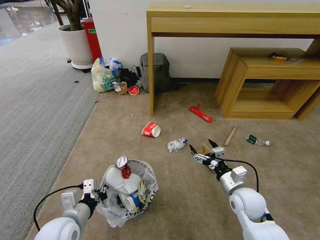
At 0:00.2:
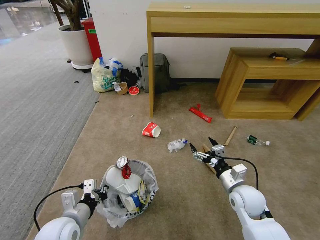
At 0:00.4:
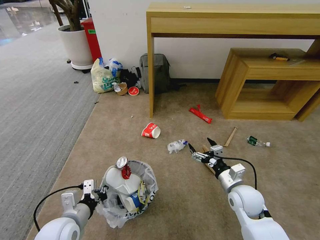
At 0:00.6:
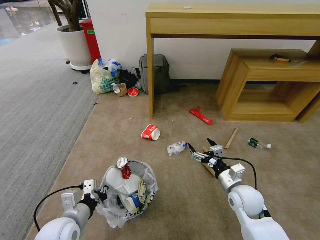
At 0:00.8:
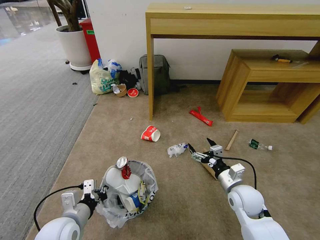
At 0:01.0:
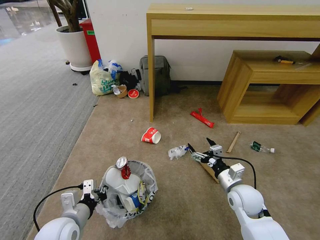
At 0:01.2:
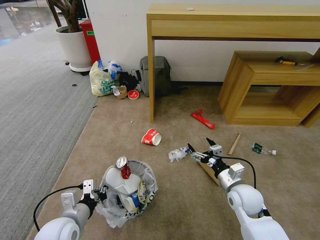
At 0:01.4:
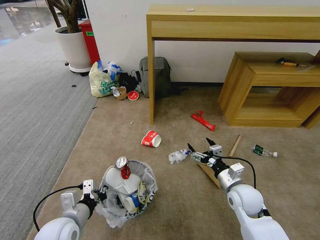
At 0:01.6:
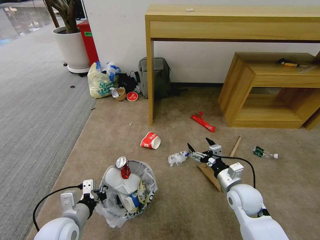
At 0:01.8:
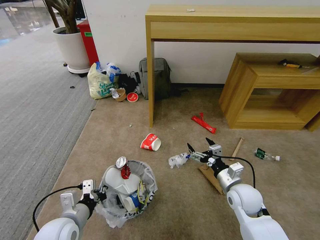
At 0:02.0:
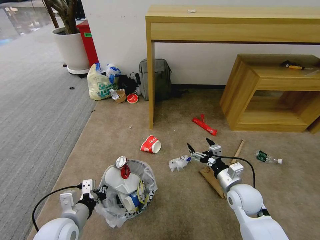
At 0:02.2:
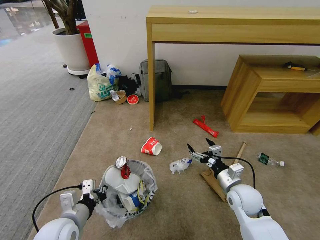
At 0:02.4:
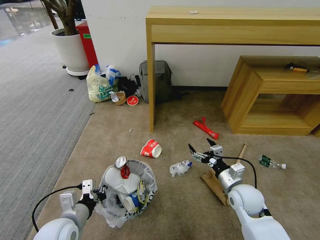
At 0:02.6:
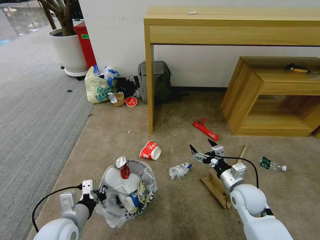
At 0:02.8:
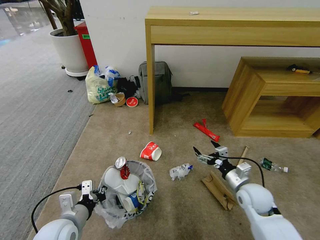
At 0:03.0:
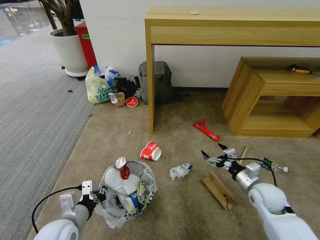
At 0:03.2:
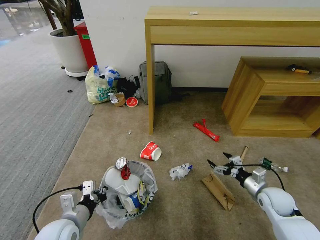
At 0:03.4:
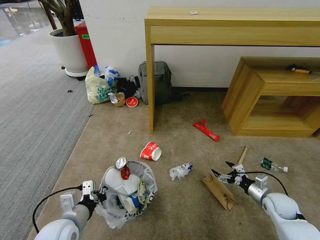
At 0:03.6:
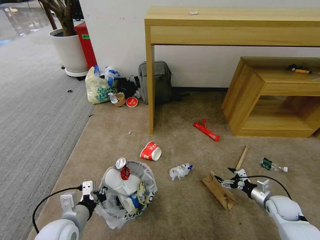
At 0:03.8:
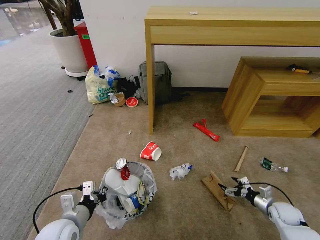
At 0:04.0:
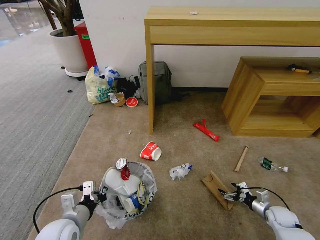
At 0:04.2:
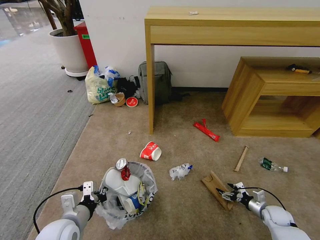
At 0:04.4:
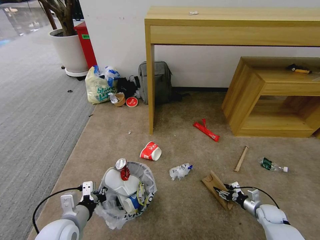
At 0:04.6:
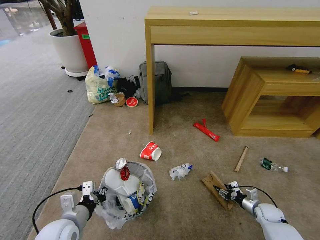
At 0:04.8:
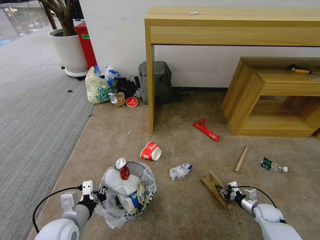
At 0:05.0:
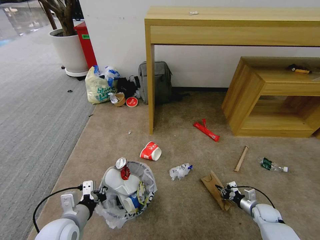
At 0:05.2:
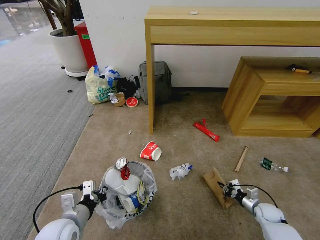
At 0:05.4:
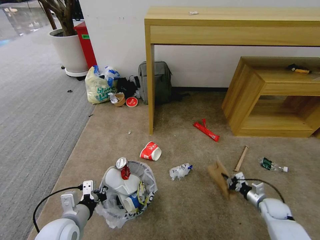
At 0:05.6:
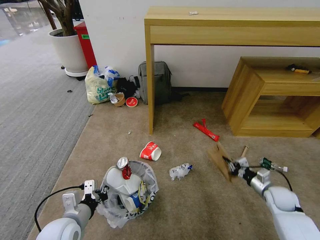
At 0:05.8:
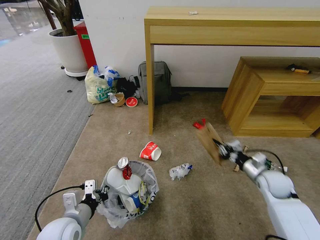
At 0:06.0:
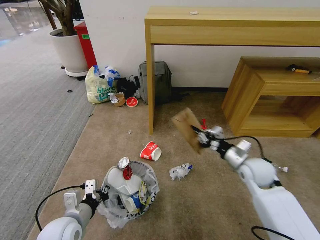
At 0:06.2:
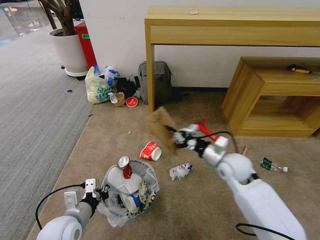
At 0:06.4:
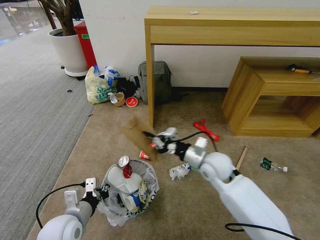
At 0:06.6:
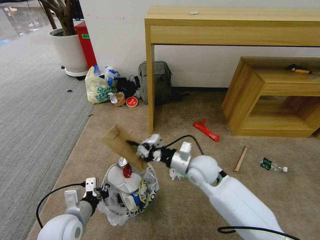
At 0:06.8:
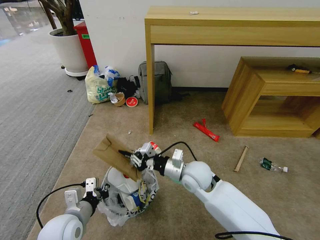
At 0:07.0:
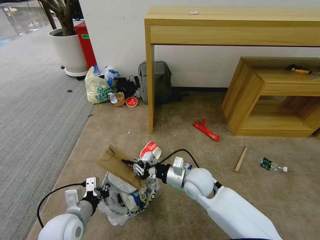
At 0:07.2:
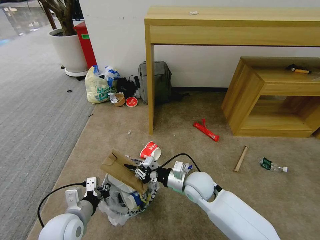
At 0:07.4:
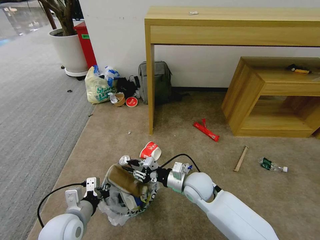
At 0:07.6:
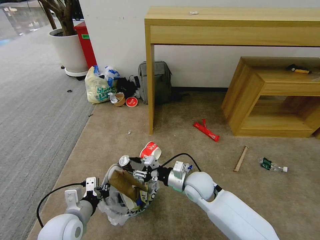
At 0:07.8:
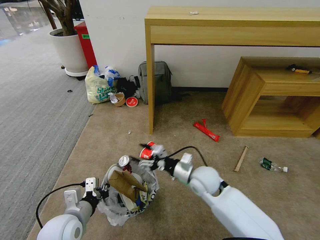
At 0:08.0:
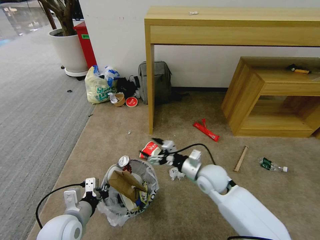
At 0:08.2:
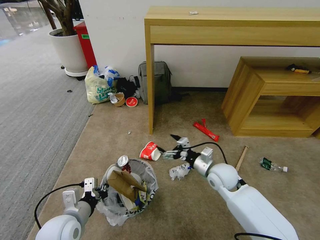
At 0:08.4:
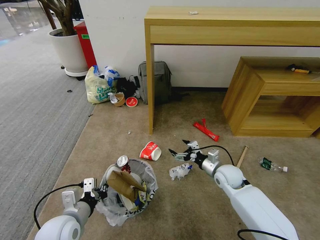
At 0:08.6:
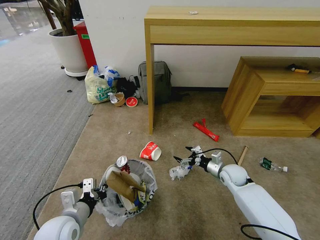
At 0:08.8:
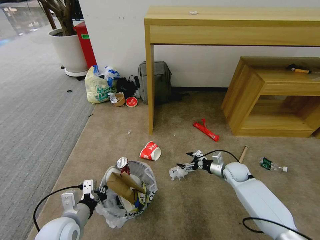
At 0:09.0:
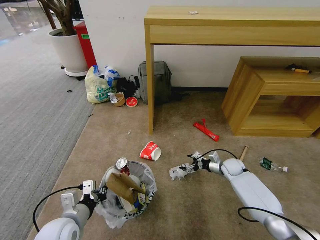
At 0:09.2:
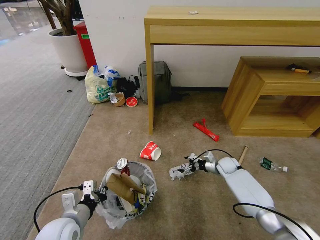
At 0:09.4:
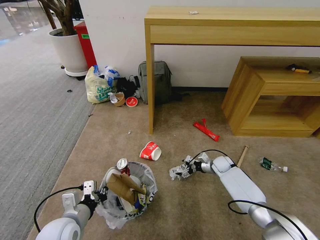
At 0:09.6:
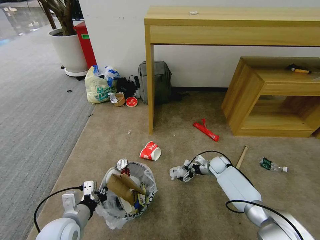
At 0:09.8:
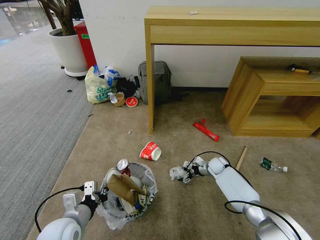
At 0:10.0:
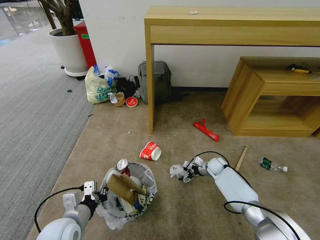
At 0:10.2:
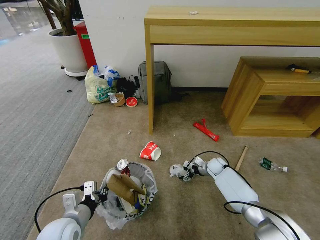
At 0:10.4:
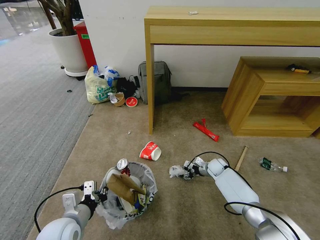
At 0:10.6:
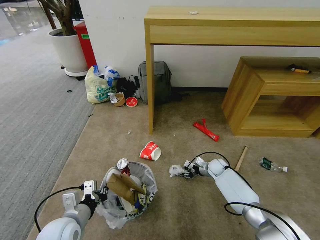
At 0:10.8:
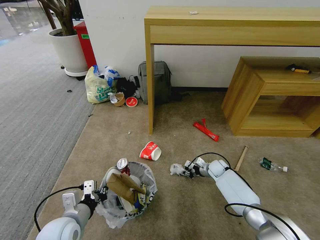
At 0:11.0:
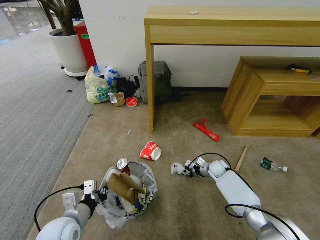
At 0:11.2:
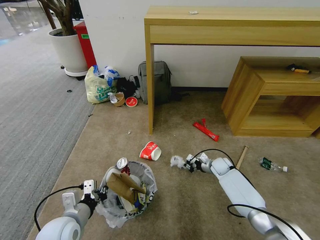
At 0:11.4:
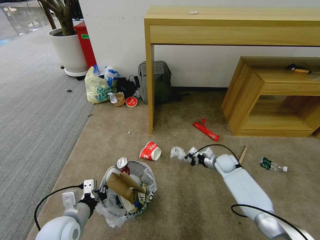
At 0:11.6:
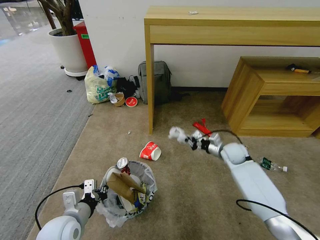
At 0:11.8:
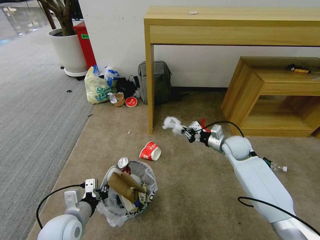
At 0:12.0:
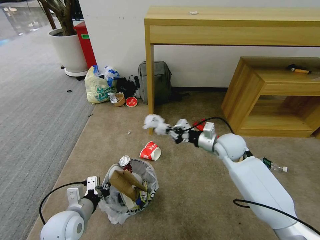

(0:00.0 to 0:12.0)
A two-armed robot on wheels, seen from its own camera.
Task of the whole recording: Pick up the trash bin and place the garbage on the floor into it.
0:01.6 - 0:03.0: The right gripper heads to the right, covering about 10 cm.
0:03.0 - 0:04.4: The right gripper is displaced downward and to the right by about 20 cm, and closes.
0:04.4 - 0:06.0: The right gripper travels upward and to the left by approximately 30 cm, and closes up.
0:06.0 - 0:07.6: The right gripper heads to the left, covering roughly 20 cm, and opens up.
0:07.6 - 0:09.0: The right gripper travels to the right, forward and downward by approximately 30 cm, and opens its fingers.
0:09.0 - 0:10.4: The right gripper goes about 5 cm to the left.
0:10.4 - 0:12.0: The right gripper travels upward by approximately 25 cm, and closes.

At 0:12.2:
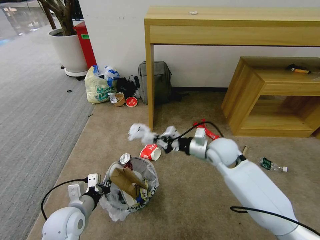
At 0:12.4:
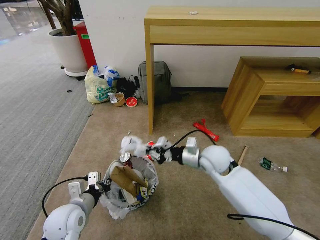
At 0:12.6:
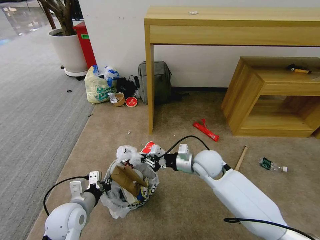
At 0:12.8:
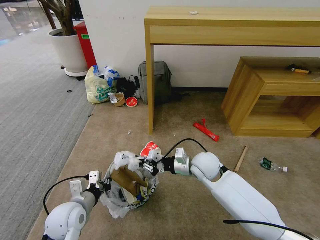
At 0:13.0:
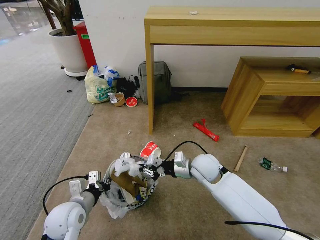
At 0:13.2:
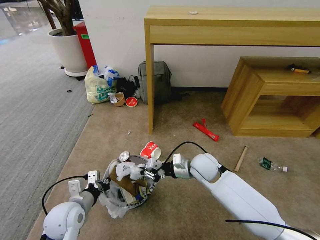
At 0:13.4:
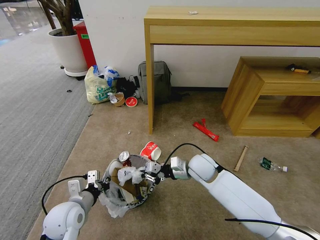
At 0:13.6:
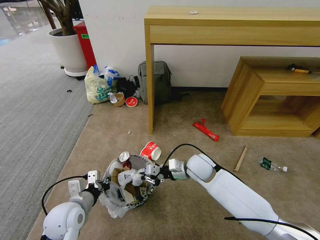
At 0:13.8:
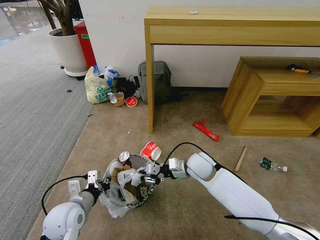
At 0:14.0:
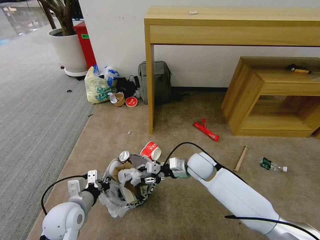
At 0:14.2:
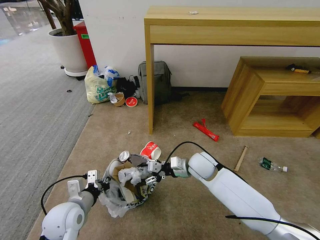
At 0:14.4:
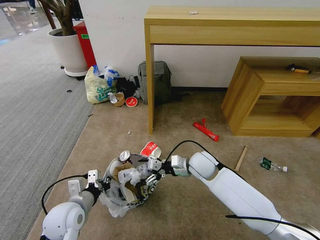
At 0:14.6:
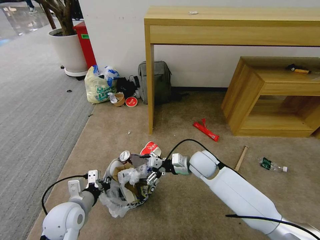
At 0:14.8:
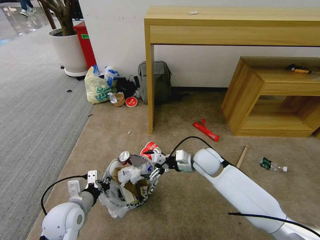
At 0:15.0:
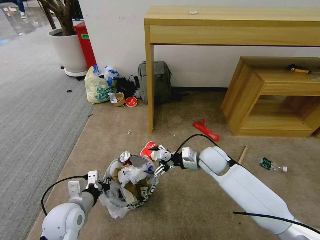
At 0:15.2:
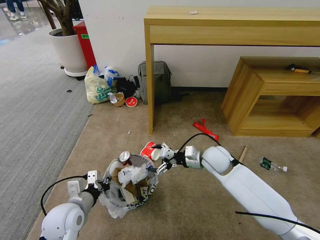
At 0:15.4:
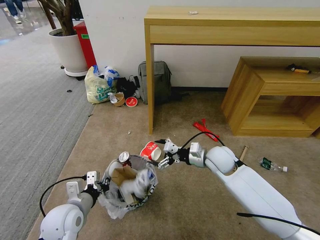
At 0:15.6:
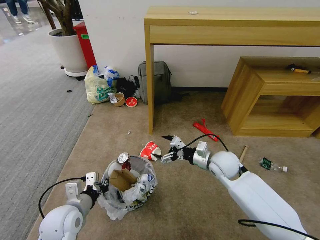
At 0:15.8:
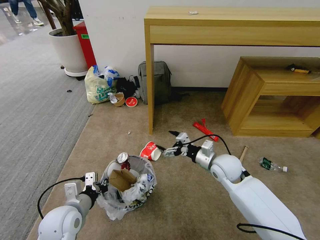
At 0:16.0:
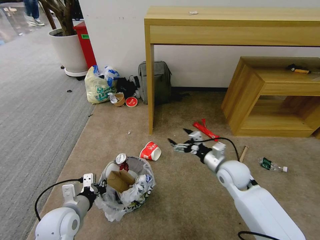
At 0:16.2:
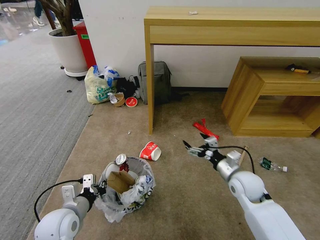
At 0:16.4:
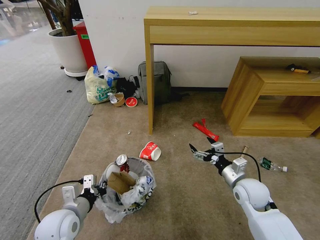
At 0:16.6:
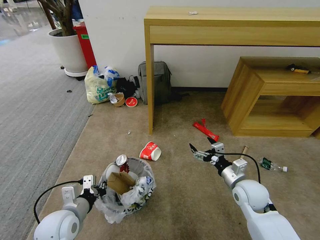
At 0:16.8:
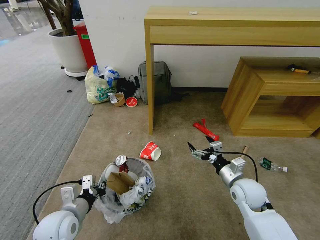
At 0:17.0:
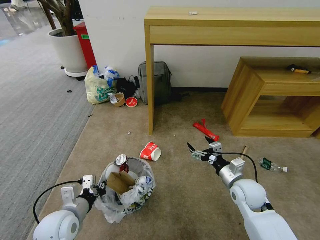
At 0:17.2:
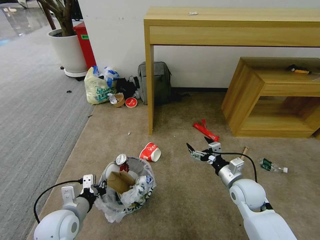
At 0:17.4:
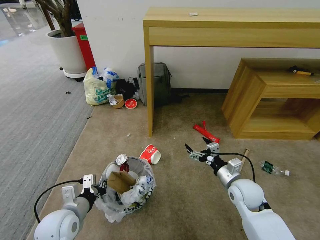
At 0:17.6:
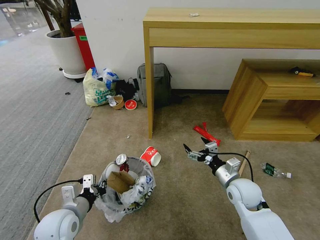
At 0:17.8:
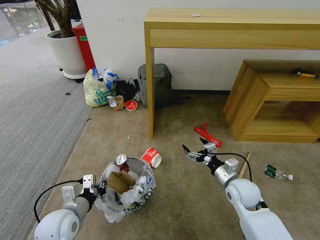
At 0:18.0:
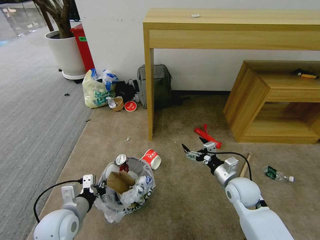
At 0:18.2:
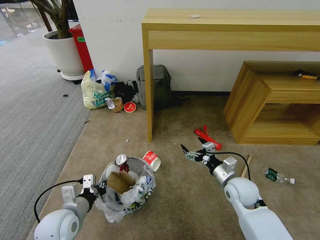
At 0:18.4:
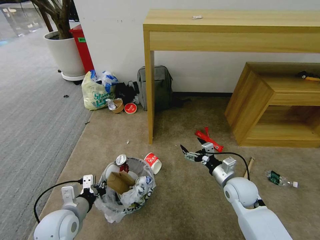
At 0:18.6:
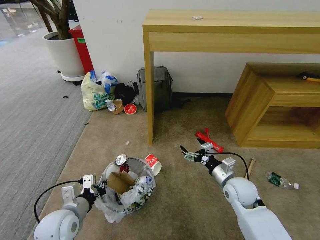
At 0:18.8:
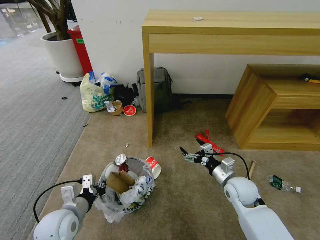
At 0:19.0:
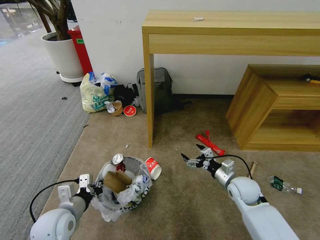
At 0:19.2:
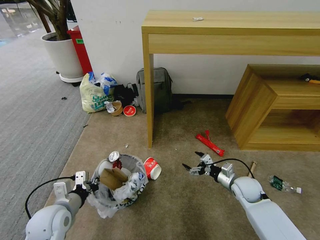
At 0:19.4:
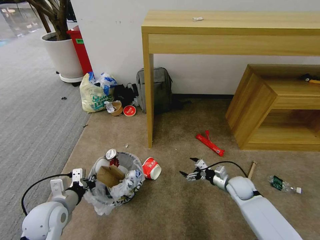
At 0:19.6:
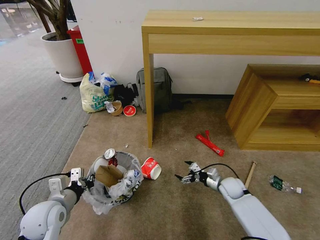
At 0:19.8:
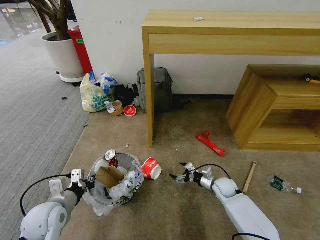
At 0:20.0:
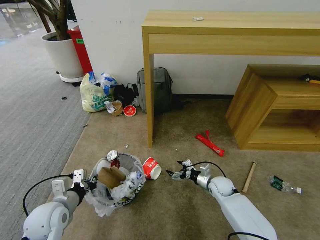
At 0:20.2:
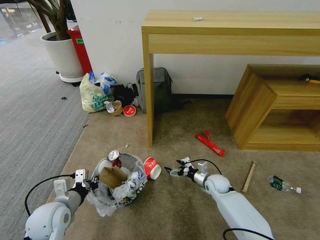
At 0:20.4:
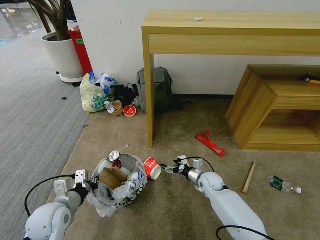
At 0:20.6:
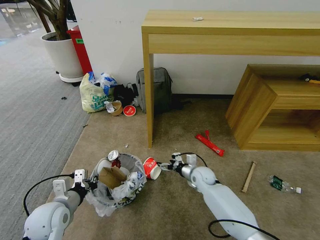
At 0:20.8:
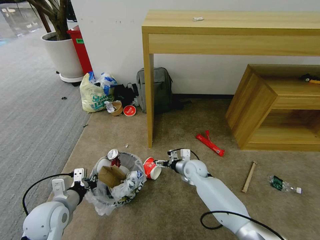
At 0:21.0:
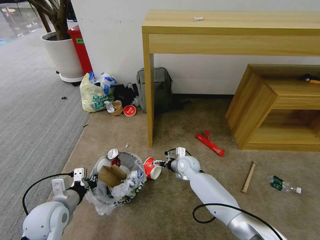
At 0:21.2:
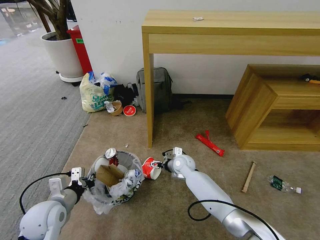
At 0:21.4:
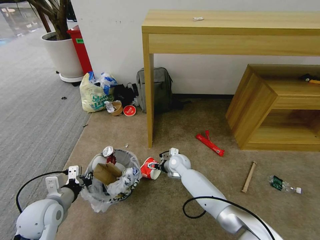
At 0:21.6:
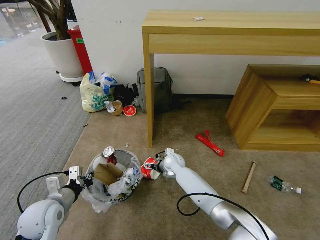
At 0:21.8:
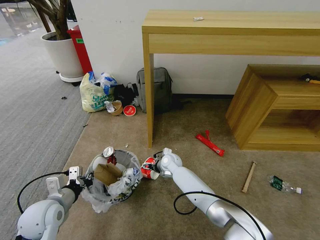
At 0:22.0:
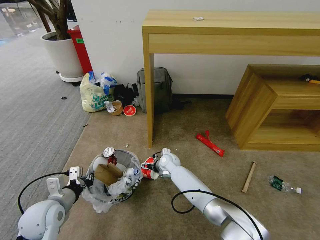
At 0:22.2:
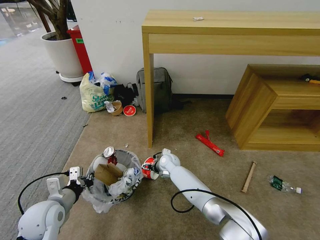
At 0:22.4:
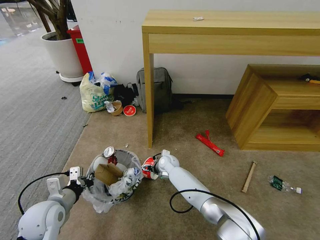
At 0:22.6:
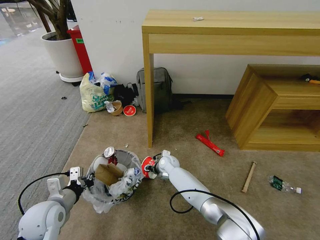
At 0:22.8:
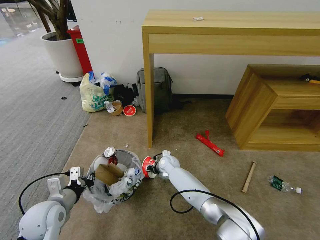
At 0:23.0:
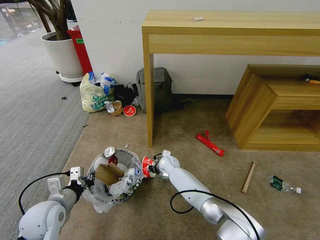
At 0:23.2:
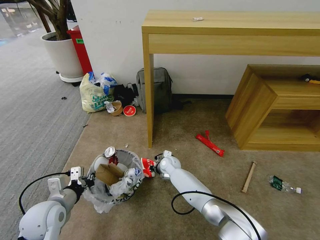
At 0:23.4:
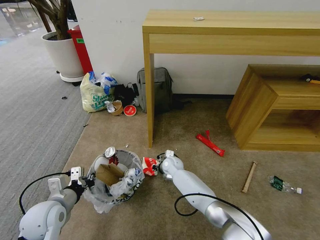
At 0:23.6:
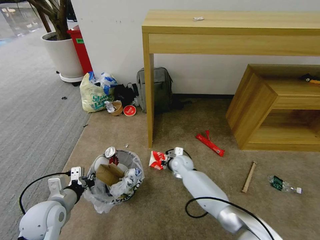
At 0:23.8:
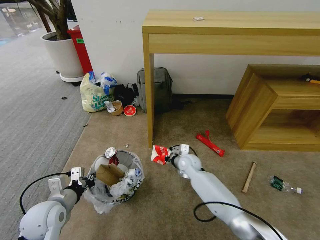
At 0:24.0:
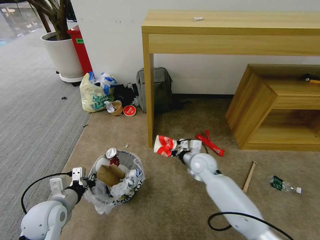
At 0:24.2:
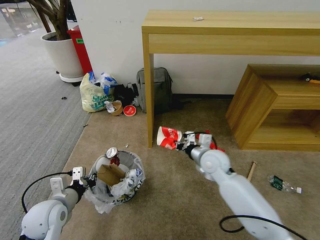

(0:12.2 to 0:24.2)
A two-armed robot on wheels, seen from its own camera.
Task of the whole recording: Pick up the trash bin and place the garbage on the floor into it.
0:12.2 - 0:13.8: The right gripper is displaced downward and to the left by roughly 10 cm.
0:13.8 - 0:15.2: The right gripper heads to the right, covering approximately 5 cm, and opens up.
0:15.2 - 0:16.6: The right gripper shifts some 15 cm backward and to the right.
0:16.6 - 0:18.2: The grippers make only small movements.
0:18.2 - 0:19.8: The right gripper is displaced downward and forward by roughly 15 cm.
0:19.8 - 0:21.2: The right gripper heads to the left, forward and upward, covering approximately 20 cm.
0:21.2 - 0:22.6: The right gripper goes some 5 cm to the left.
0:22.6 - 0:24.2: The right gripper travels upward, to the right and backward by some 25 cm, and closes.
